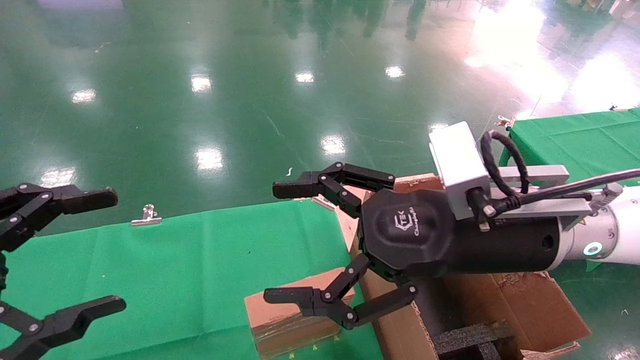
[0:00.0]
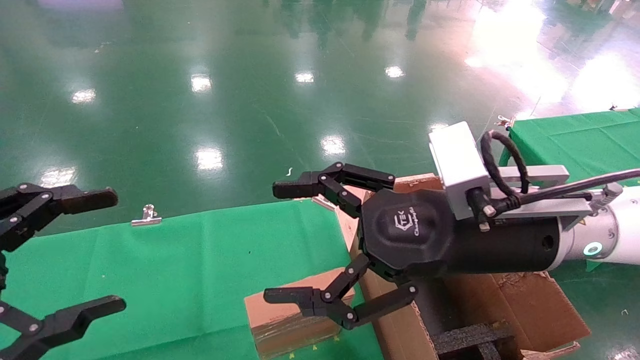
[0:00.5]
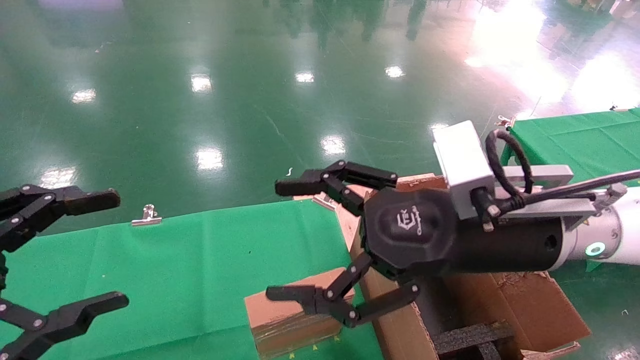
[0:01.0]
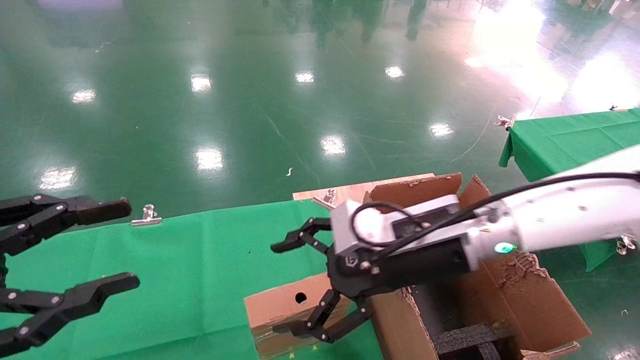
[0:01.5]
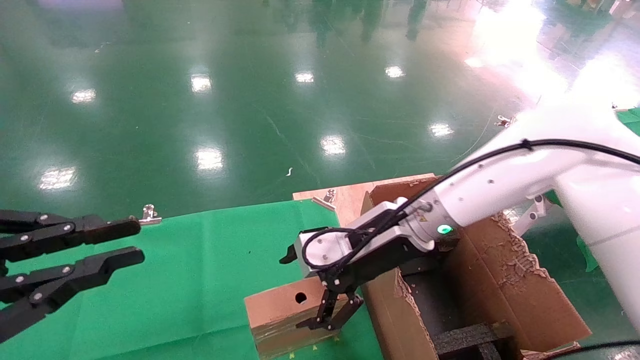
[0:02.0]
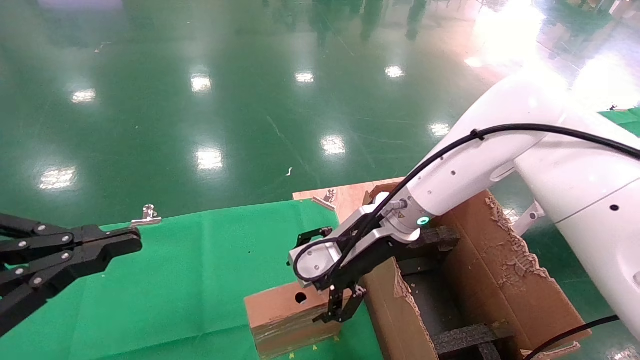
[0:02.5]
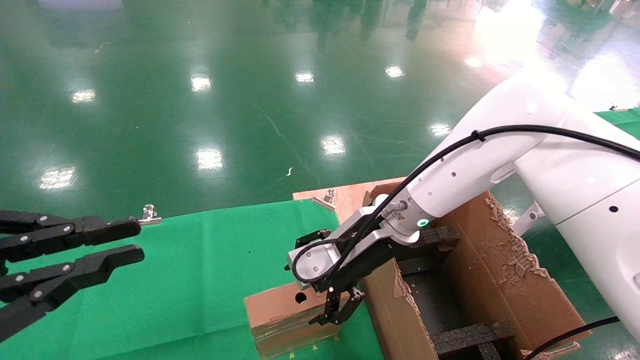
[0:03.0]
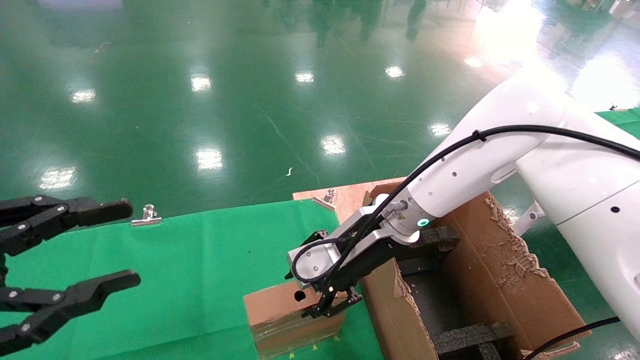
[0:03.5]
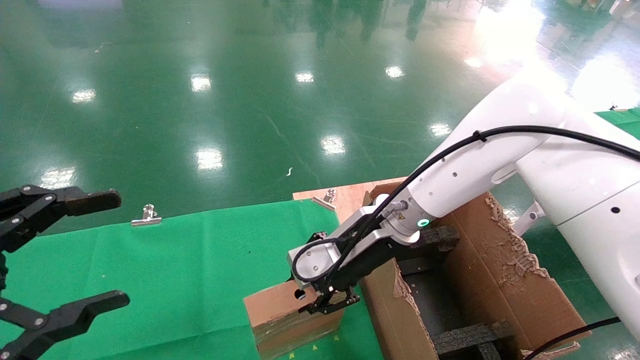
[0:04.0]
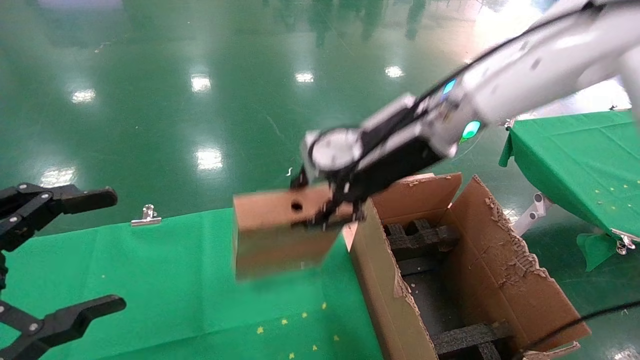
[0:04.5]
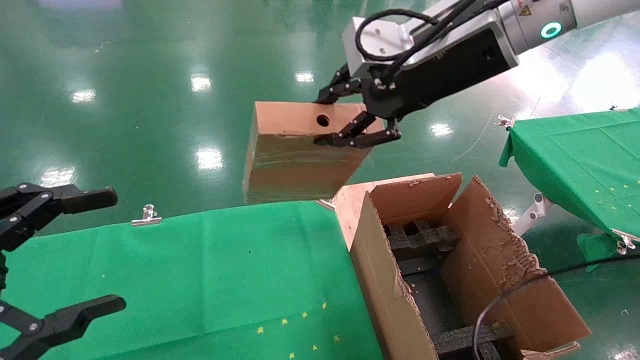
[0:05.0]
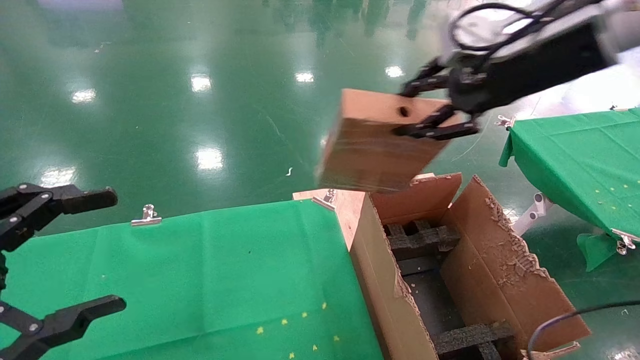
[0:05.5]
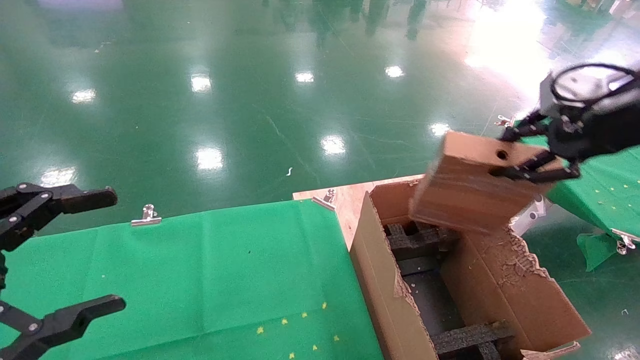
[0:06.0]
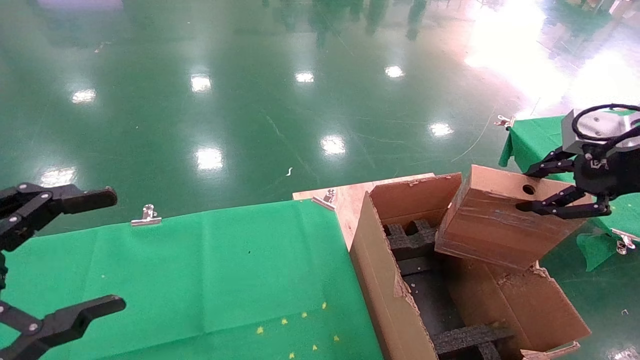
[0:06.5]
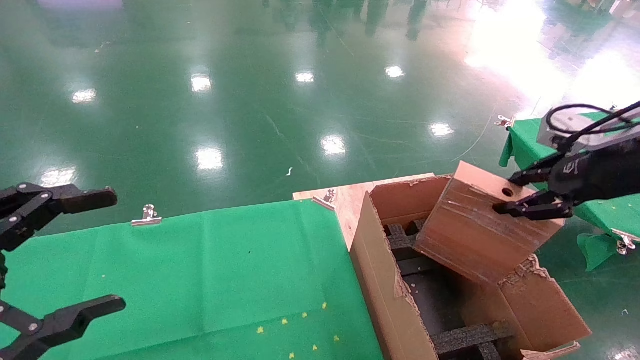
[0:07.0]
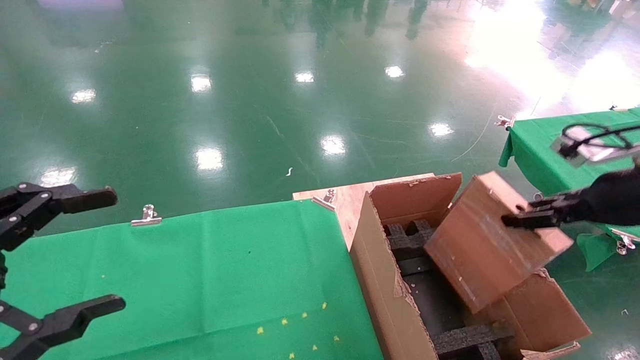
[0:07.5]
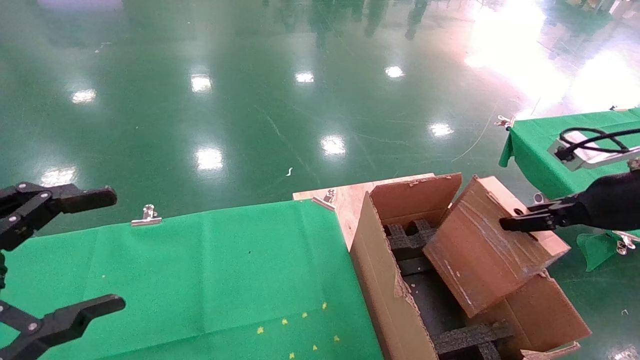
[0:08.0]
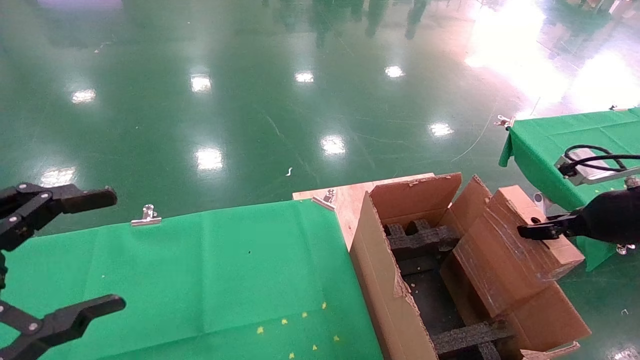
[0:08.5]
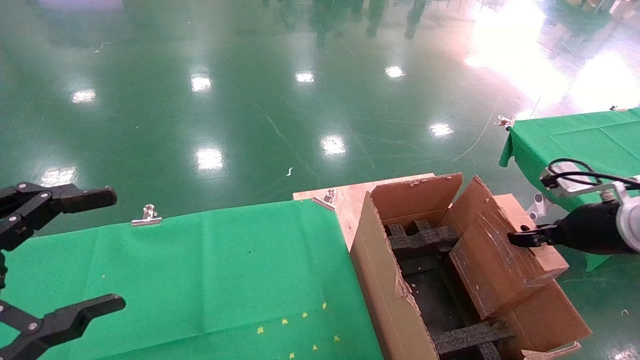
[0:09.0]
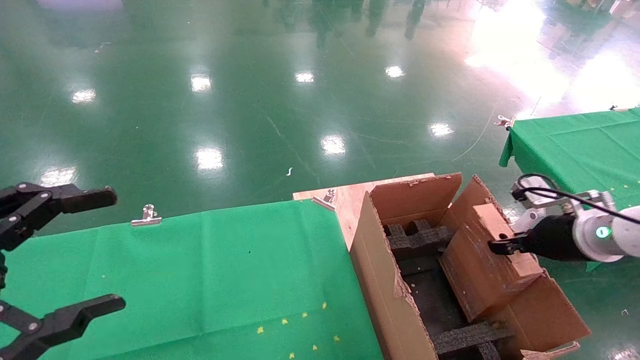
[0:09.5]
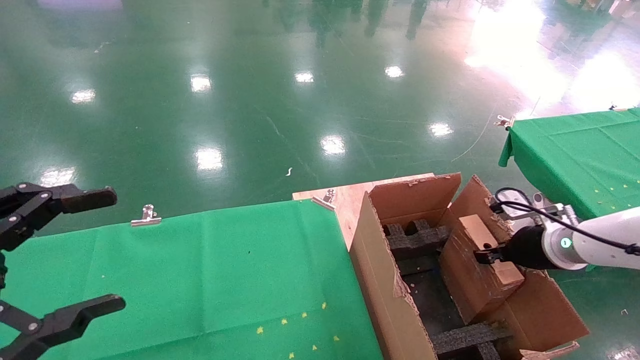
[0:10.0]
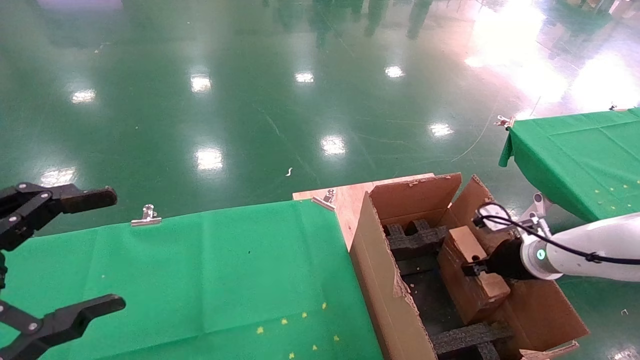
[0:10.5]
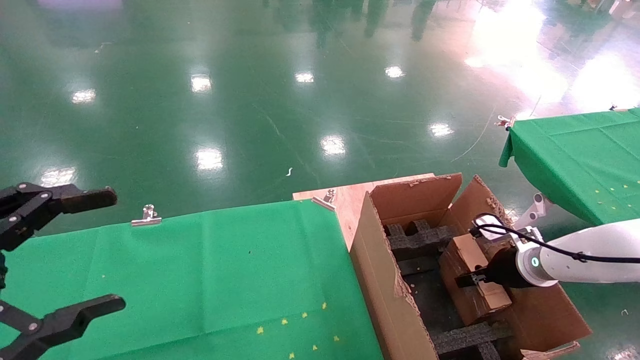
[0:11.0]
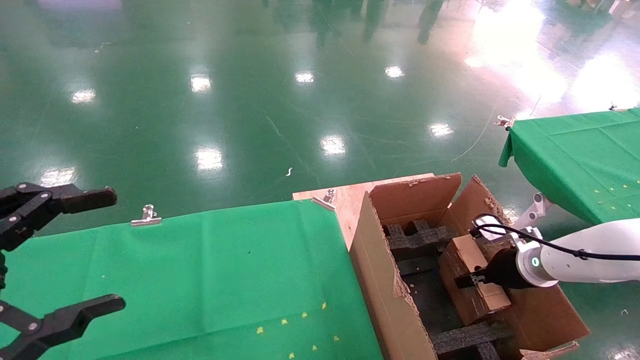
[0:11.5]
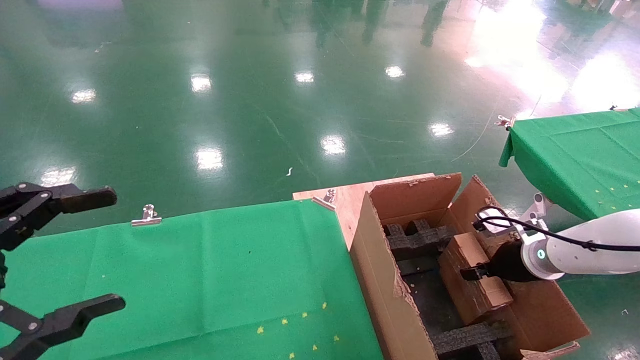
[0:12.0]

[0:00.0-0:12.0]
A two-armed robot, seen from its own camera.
Task of the whole recording: using a robotic arm to pick up a cardboard box and palace it the carton.
Step, 0:01.5 to 0:03.5: Pick up the mouse and the power cord paper box.
0:00.0 to 0:02.0: The left gripper closes. The right gripper heads forward, downward and to the left, covering roughly 15 cm.
0:02.0 to 0:04.0: The left gripper opens. Meanwhile the right gripper closes up.
0:04.0 to 0:06.0: The right gripper moves to the right and upward, approximately 30 cm.
0:06.0 to 0:08.0: The right gripper is displaced downward by about 10 cm.
0:08.0 to 0:10.0: The right gripper shifts some 15 cm downward and forward.

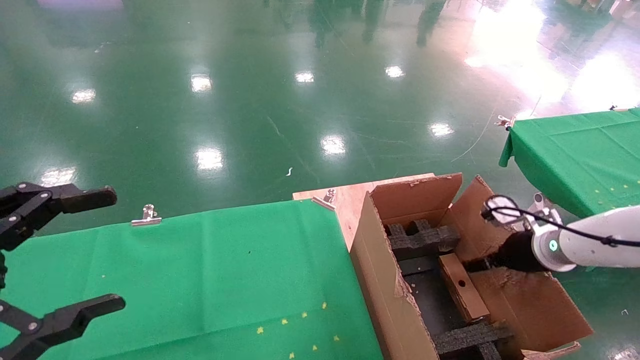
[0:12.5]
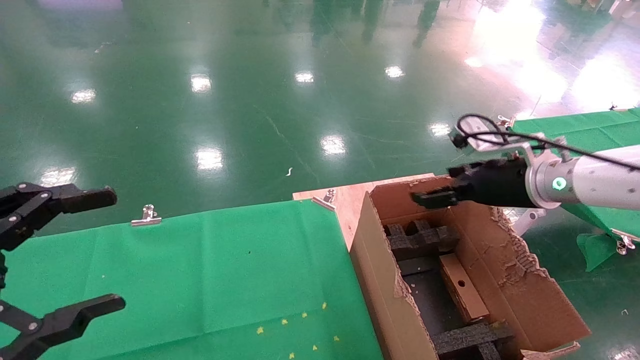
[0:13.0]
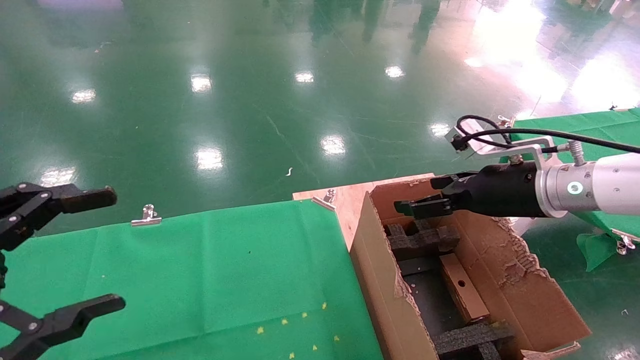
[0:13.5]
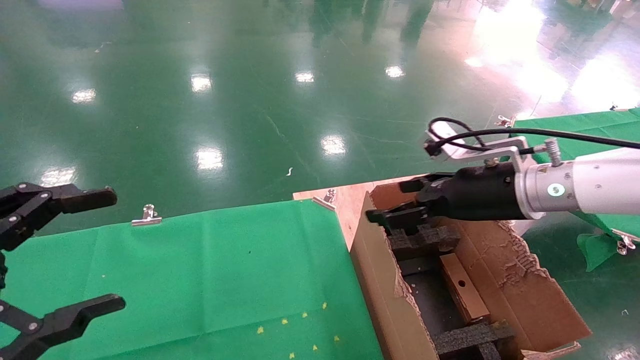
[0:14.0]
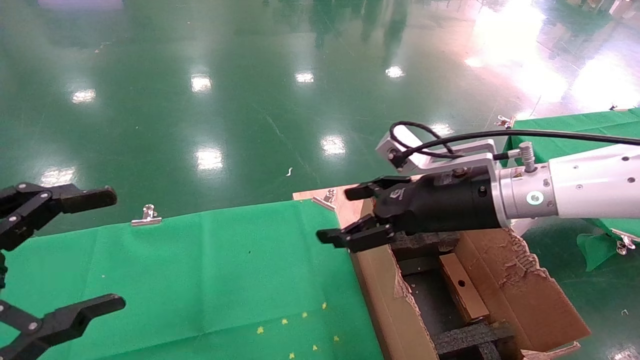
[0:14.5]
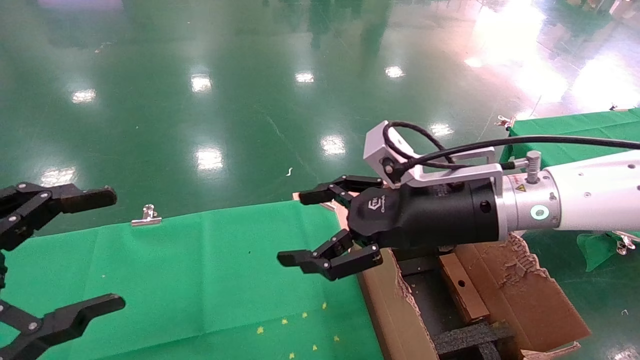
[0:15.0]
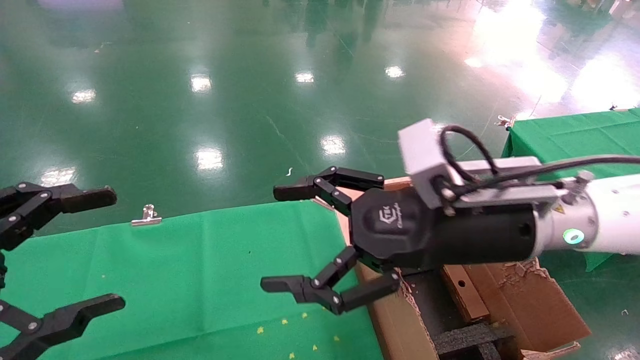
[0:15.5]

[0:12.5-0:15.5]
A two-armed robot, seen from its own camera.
Task of the whole recording: using a robotic arm to pick up a cardboard box and palace it the carton.
0:12.5 to 0:14.0: The right gripper heads to the left and upward, covering some 20 cm.
0:14.0 to 0:15.5: The right gripper goes about 10 cm to the left and backward.
